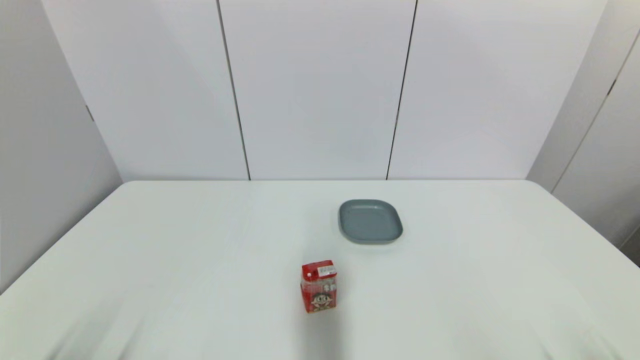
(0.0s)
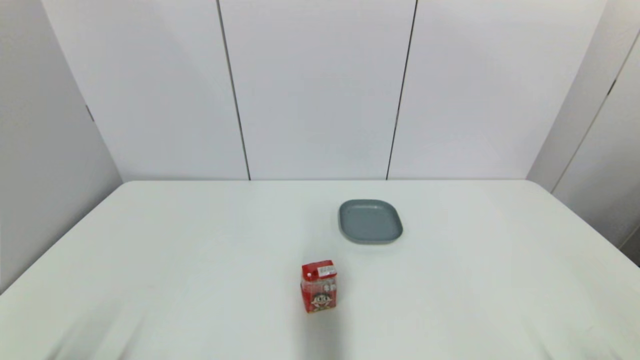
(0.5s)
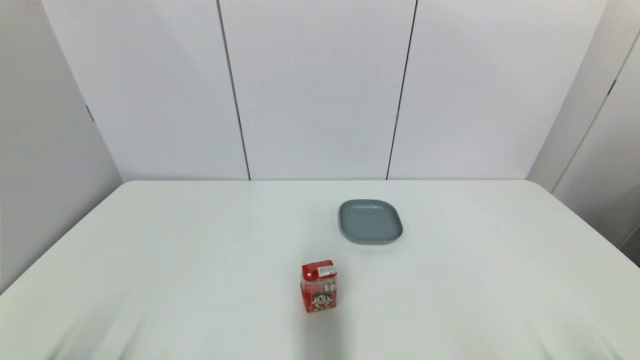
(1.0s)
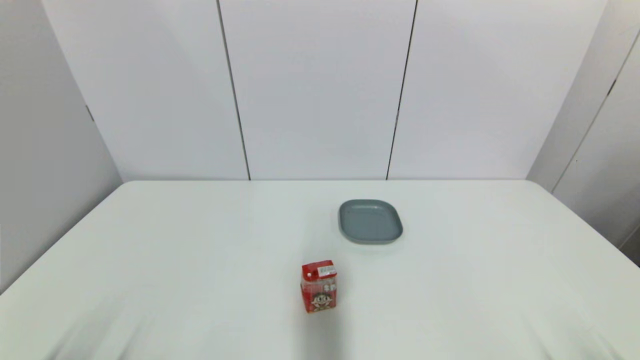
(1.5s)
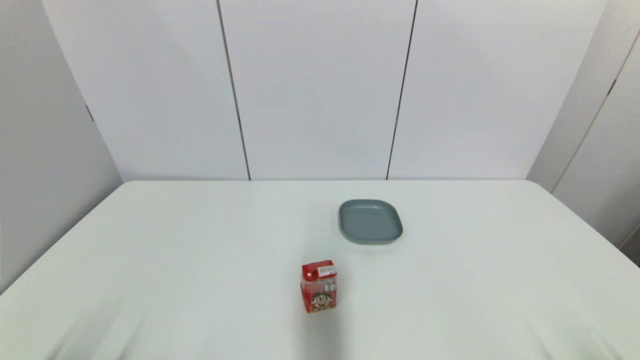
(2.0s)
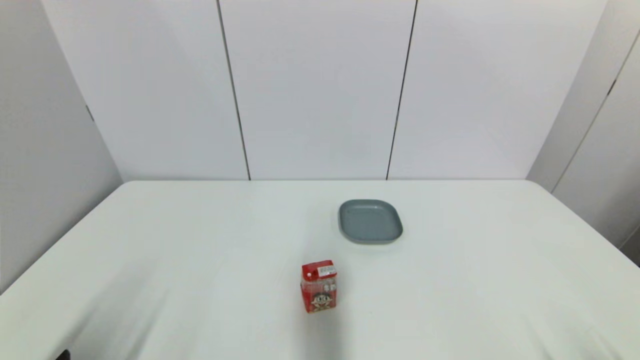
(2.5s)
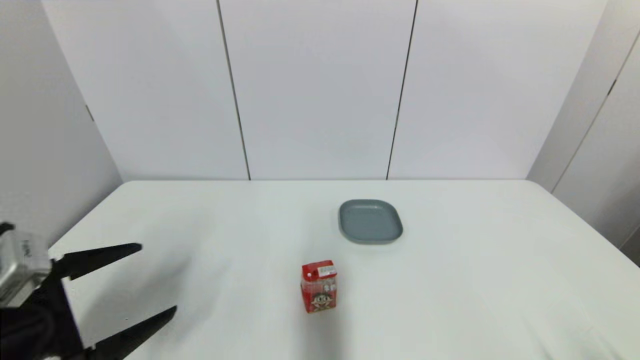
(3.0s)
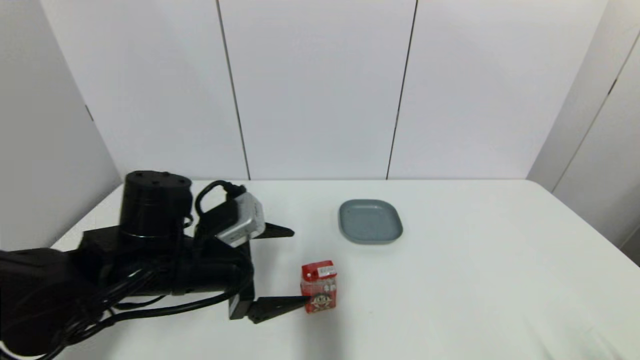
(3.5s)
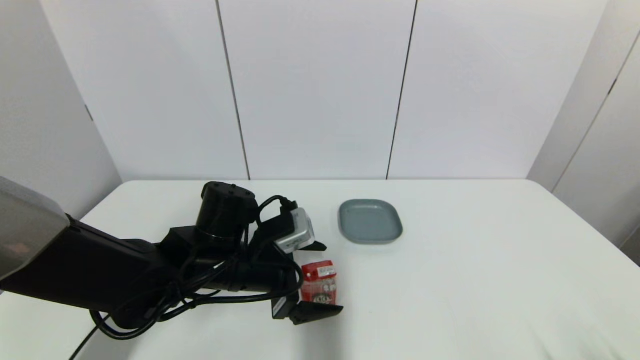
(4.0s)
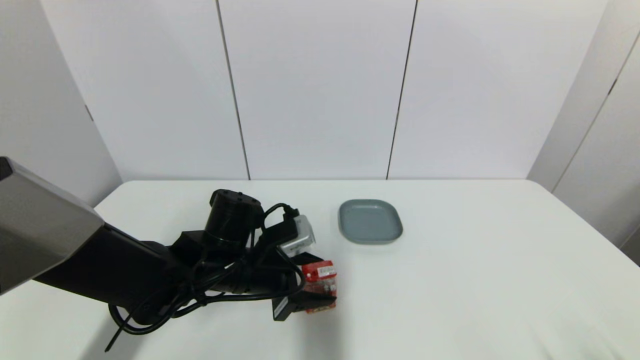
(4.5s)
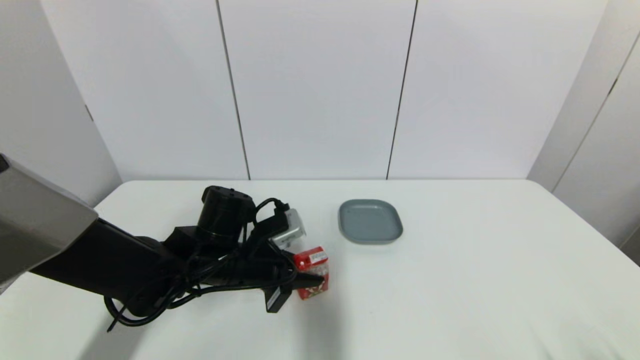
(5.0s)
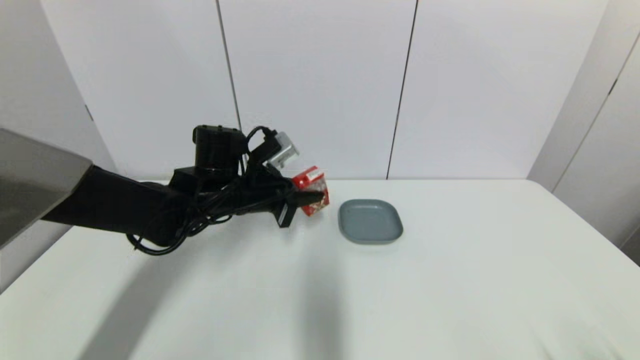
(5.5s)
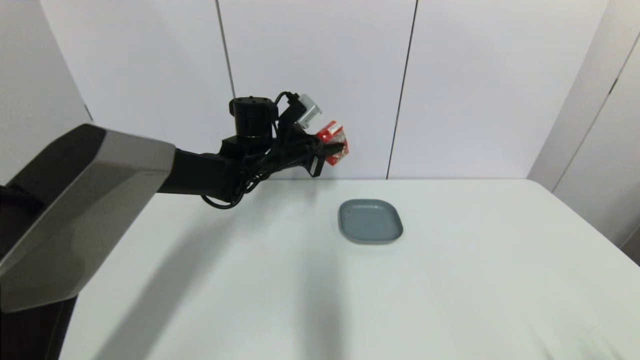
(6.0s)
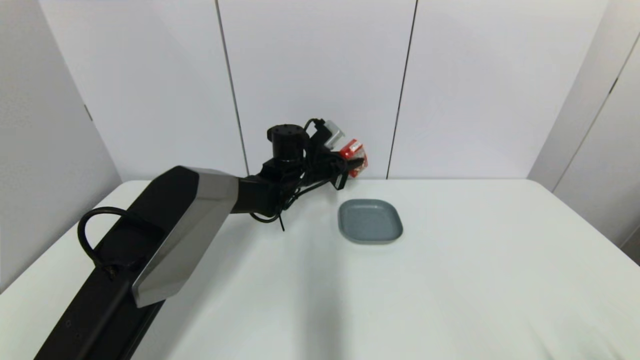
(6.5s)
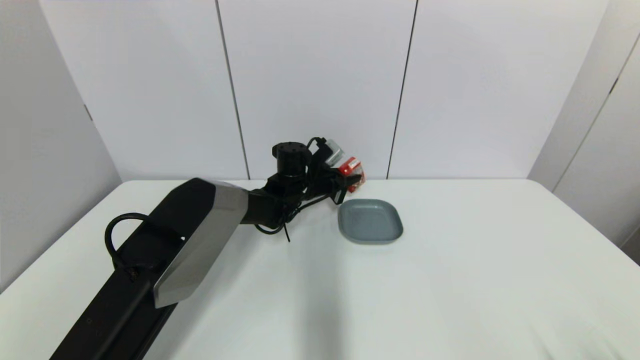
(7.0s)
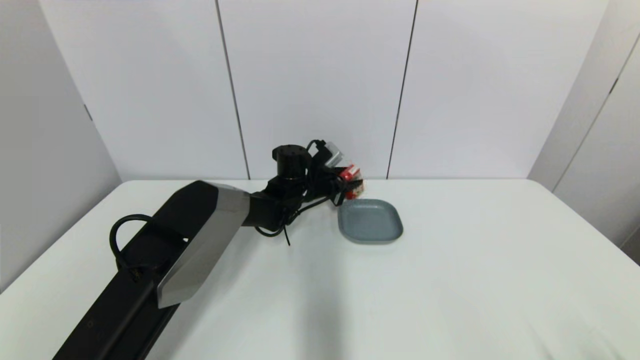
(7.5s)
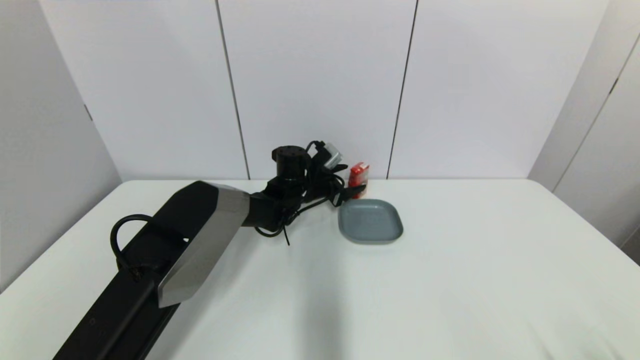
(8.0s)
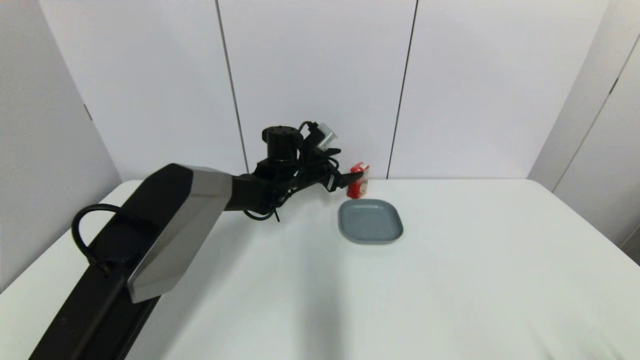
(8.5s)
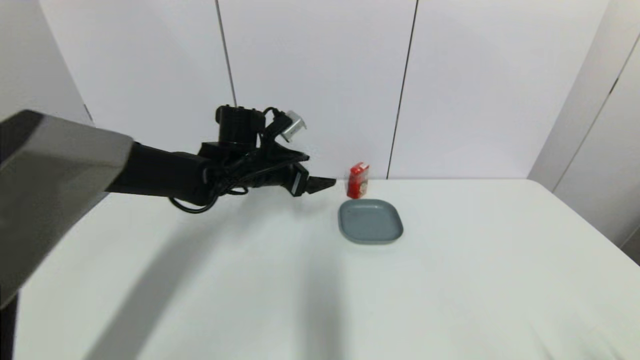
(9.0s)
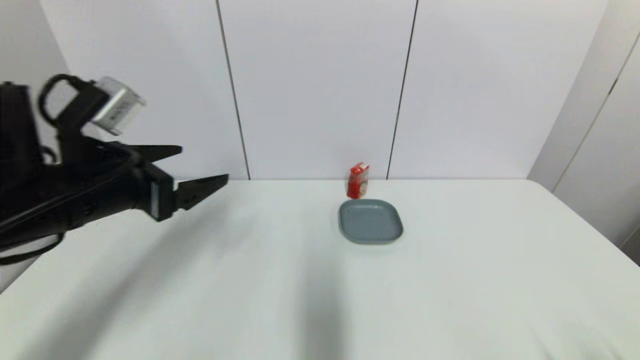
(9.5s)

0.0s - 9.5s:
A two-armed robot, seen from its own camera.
Step, 2.5s - 4.5s: Grasp the wangzai milk with left gripper.
Step, 5.0s - 7.5s: Place the wangzai milk on the table with left gripper.
0.0s - 2.0s: Neither gripper changes place.
2.0s - 4.0s: The left gripper goes roughly 35 cm forward and to the right.
4.0s - 5.5s: The left gripper heads forward and upward, covering some 10 cm, and closes.
5.5s - 7.5s: The left gripper moves forward, to the right and downward, approximately 20 cm.
7.5s - 9.5s: The left gripper goes some 40 cm backward, to the left and upward, and opens.

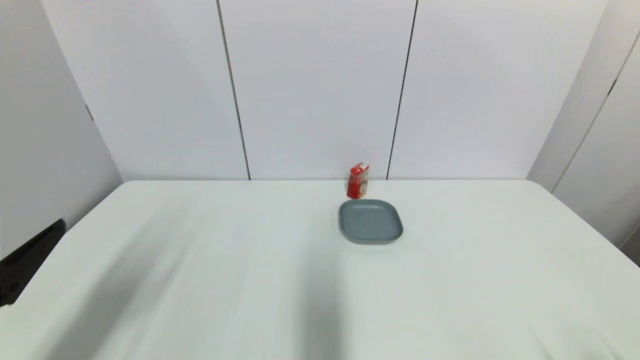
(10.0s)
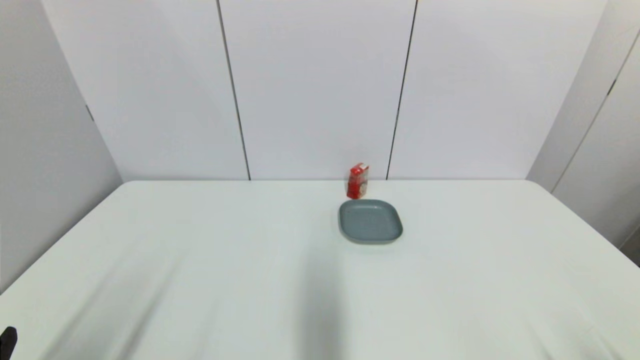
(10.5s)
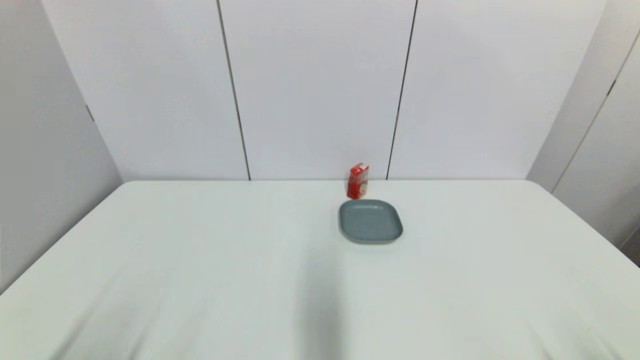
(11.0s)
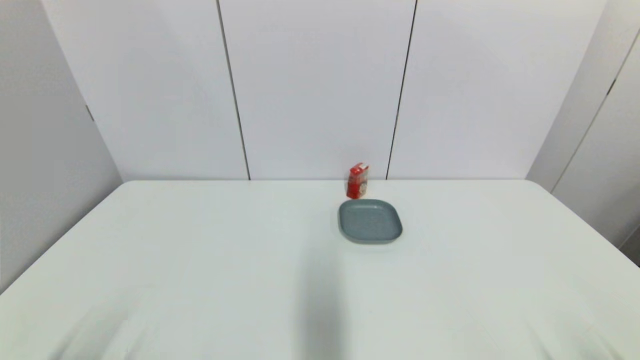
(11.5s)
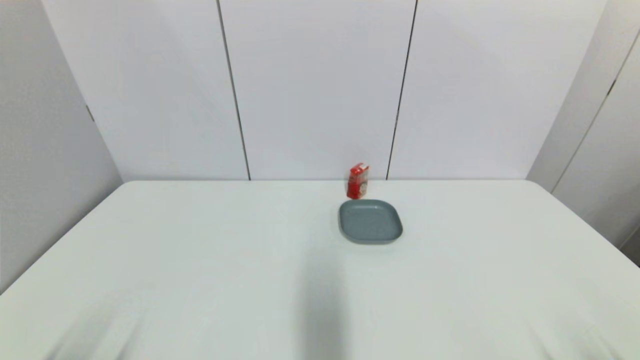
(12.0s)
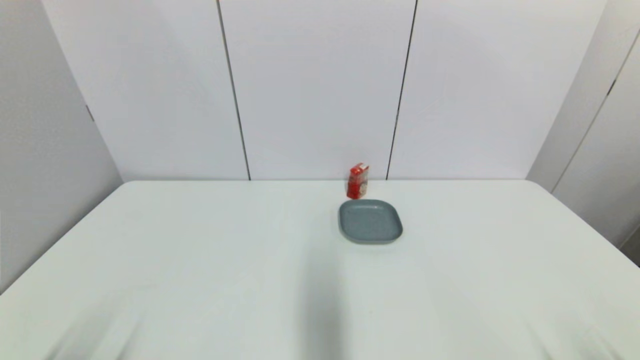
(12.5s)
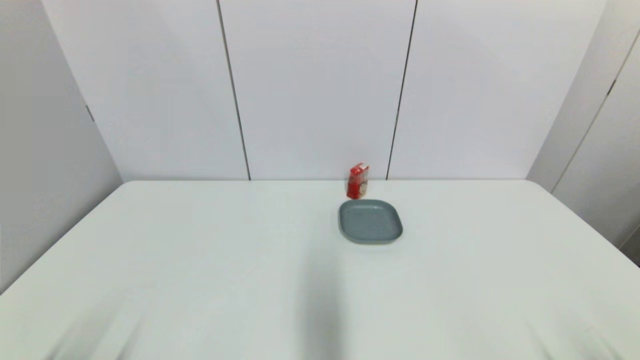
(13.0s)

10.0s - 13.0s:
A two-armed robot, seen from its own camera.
10.0s - 11.5s: The left gripper moves downward and backward, roughly 15 cm.
